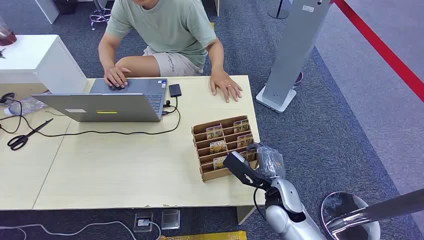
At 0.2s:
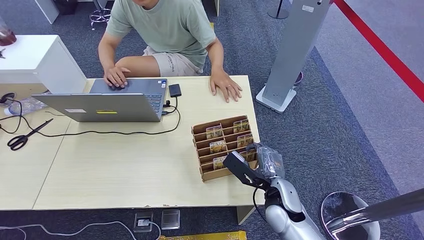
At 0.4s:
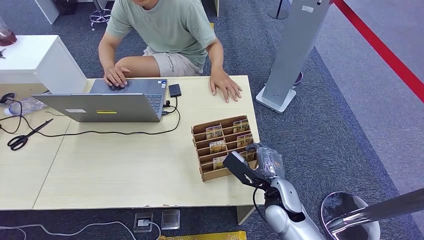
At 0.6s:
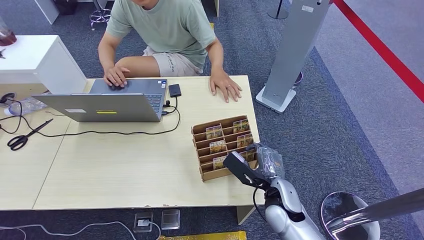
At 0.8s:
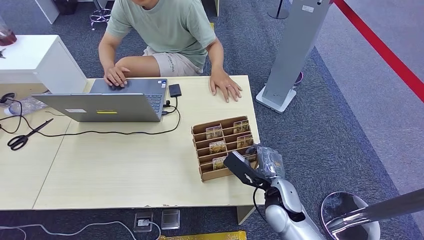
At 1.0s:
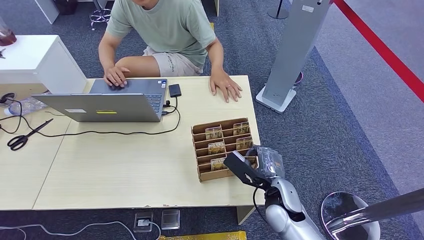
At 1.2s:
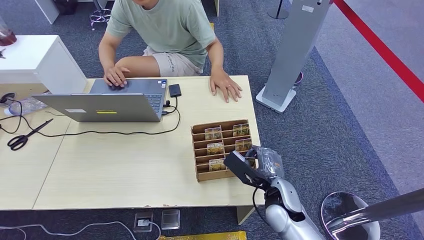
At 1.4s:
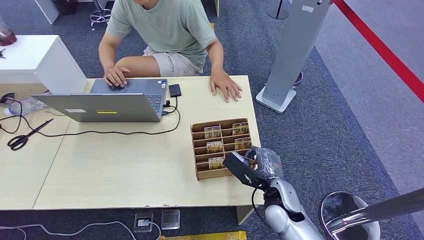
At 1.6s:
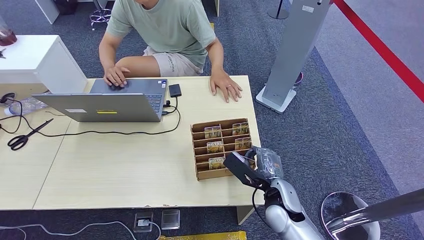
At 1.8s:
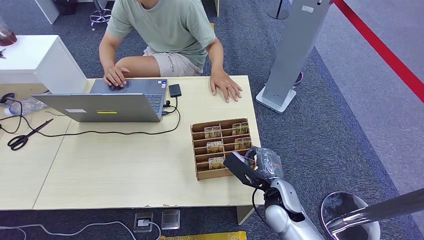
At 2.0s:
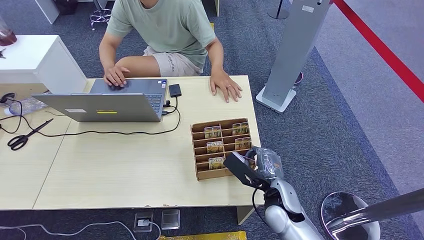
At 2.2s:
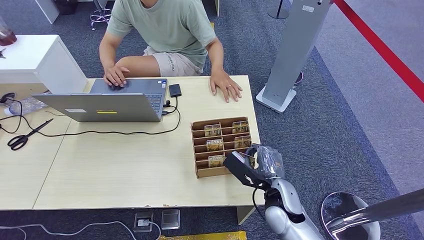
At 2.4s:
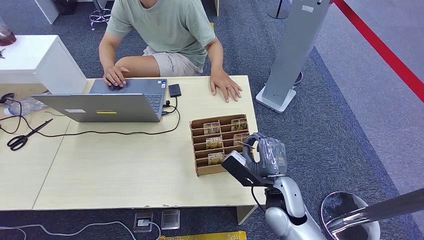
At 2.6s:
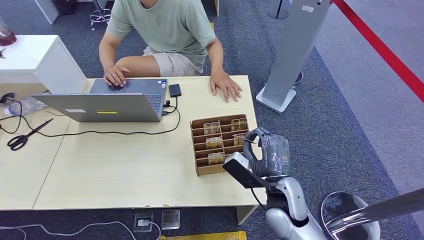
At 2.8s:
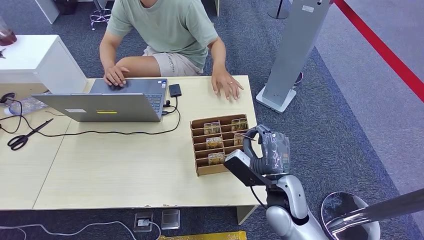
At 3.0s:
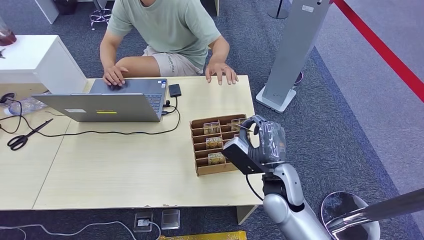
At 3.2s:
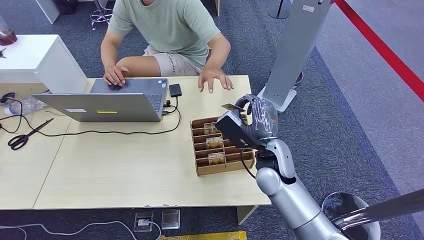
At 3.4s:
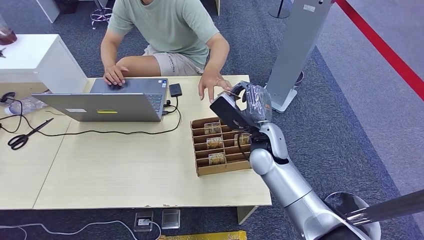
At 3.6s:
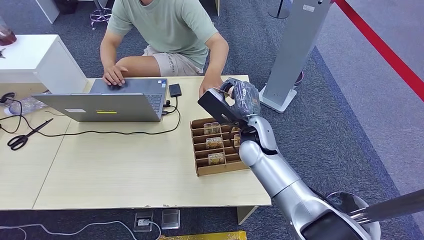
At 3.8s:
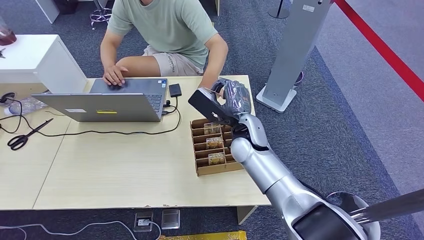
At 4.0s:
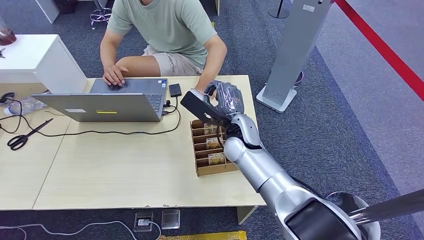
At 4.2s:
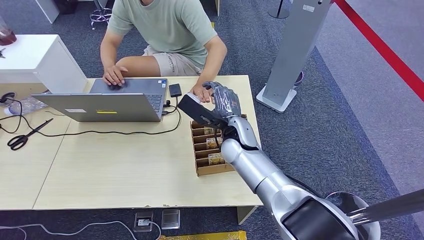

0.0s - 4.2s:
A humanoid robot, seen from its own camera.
Step, 0.0s - 2.4s: Pick up the key card from the card box.
Step, 3.2s - 4.2s: Hand the key card to the target.
1.4s - 2.8s: The right hand is displaced upward by approximately 5 cm.
2.8s - 4.2s: The right hand goes approximately 15 cm forward and to the left.

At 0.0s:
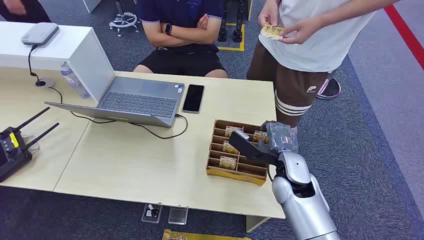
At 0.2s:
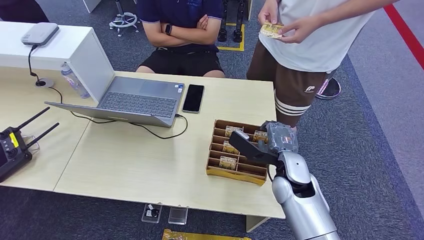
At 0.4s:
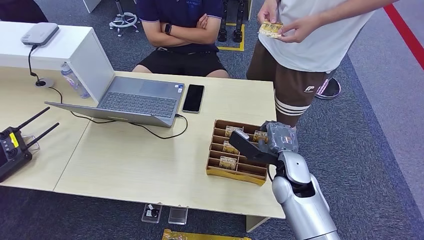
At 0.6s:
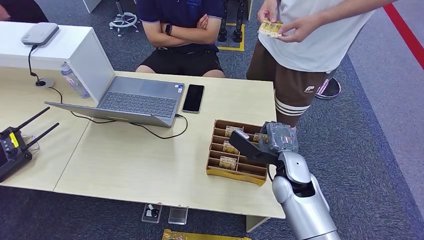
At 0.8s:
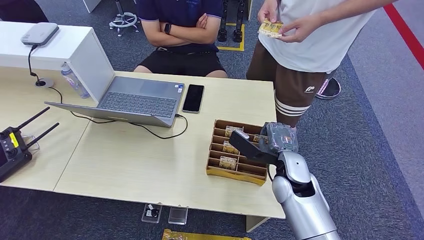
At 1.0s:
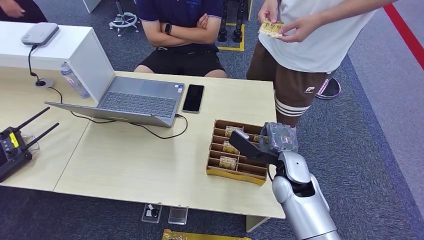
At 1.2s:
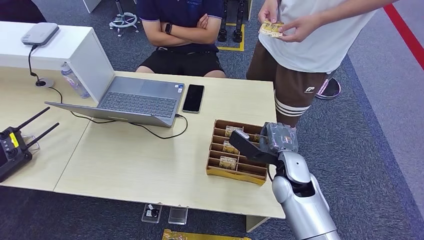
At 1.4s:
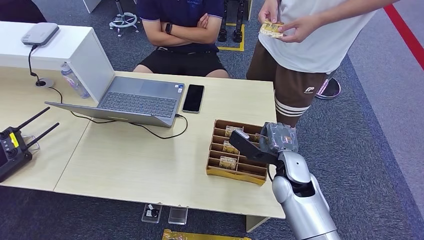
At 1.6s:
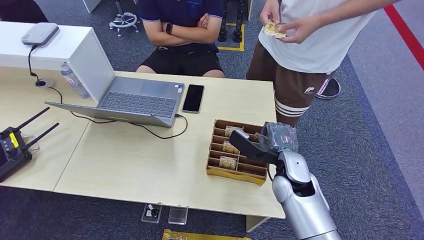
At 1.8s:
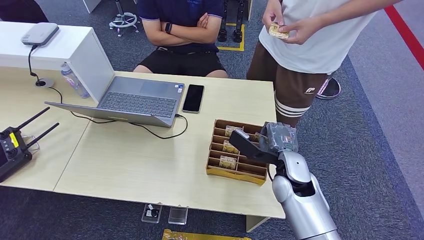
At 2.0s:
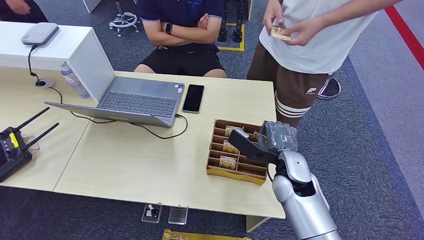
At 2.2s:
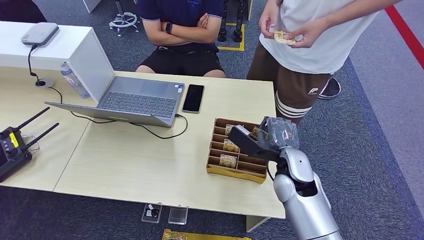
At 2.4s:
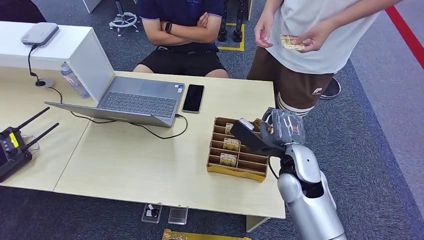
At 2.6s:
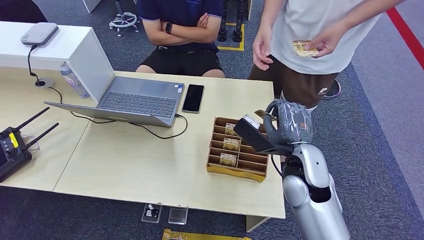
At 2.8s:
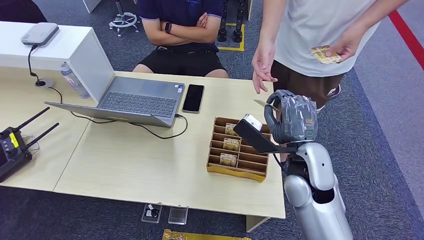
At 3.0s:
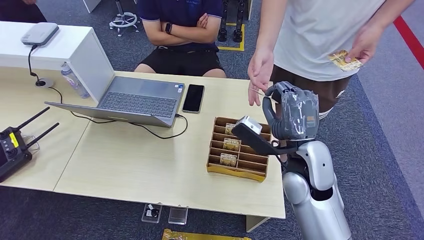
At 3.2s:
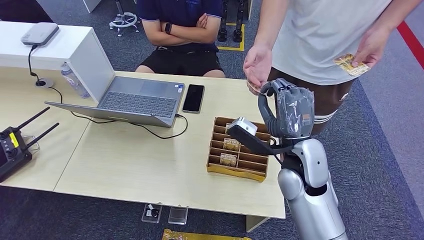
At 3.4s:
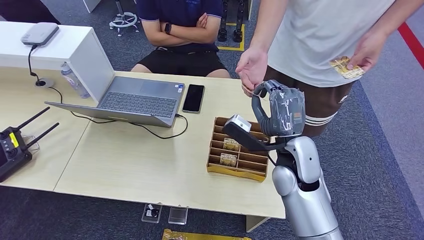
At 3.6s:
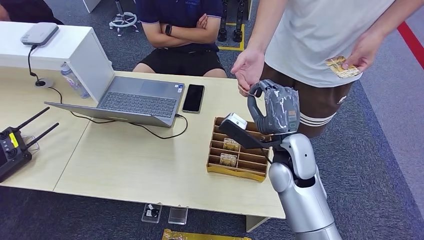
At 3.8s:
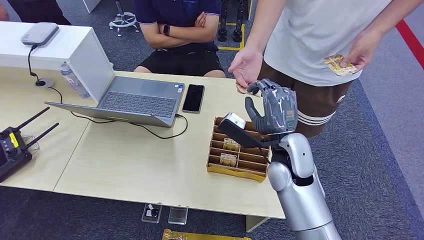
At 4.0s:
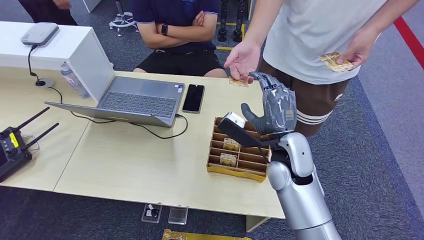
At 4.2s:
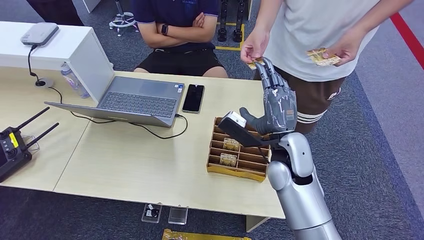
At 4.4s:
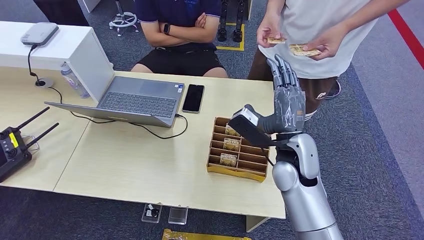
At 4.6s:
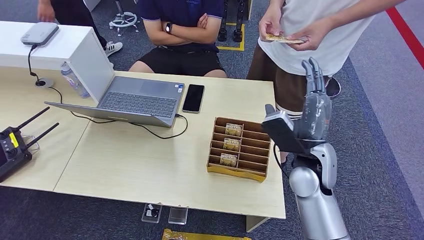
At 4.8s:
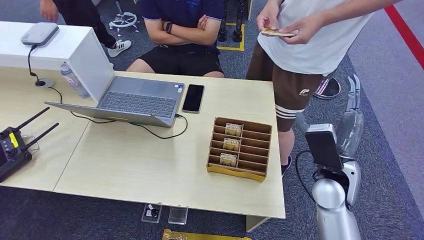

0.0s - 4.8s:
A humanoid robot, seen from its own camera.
Step, 0.0s - 2.6s: Pick up the key card from the card box.
Step, 3.0s - 4.8s: Hand the key card to the target.
1.6s - 3.2s: The right hand is displaced upward by some 10 cm.
